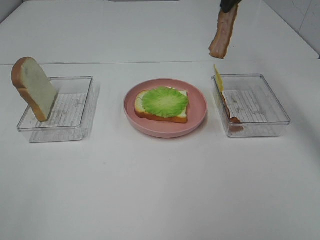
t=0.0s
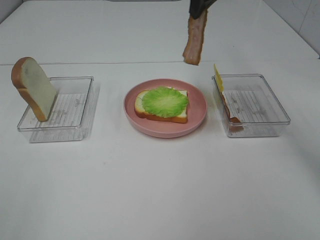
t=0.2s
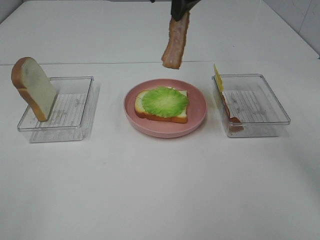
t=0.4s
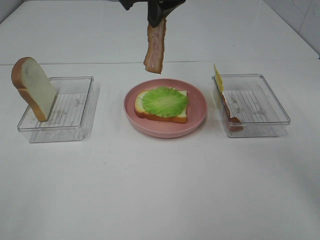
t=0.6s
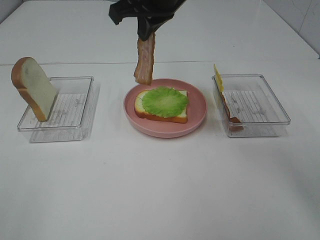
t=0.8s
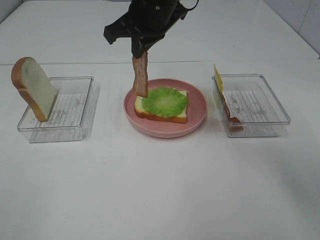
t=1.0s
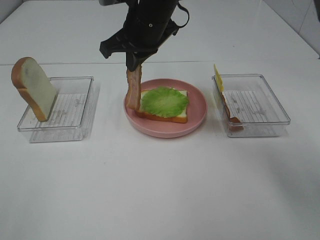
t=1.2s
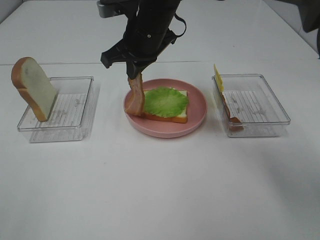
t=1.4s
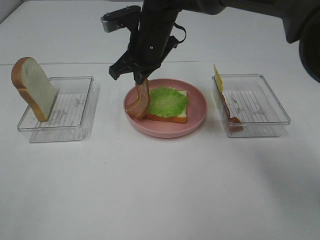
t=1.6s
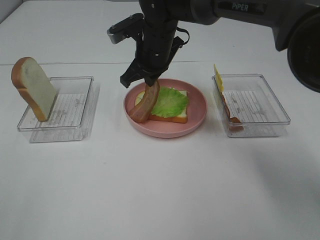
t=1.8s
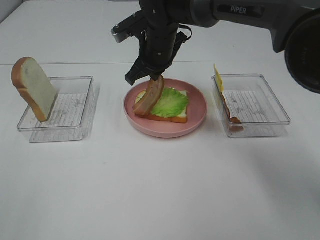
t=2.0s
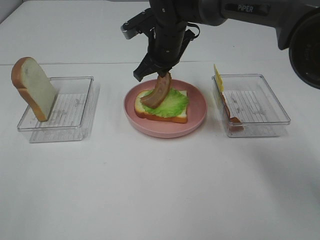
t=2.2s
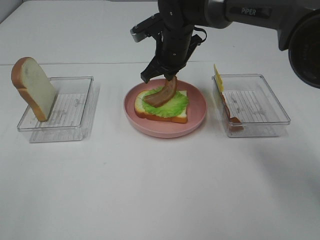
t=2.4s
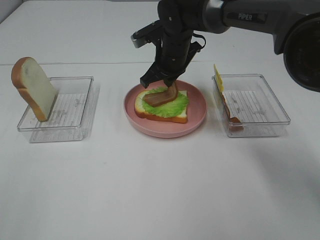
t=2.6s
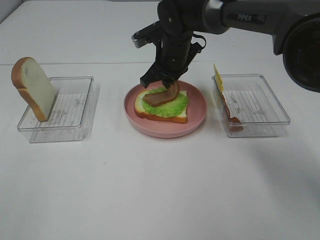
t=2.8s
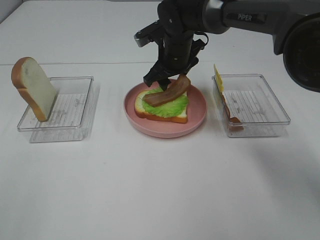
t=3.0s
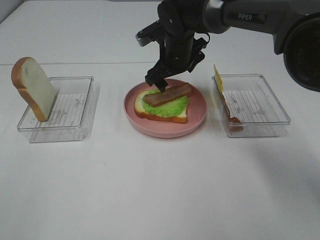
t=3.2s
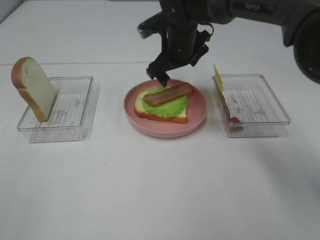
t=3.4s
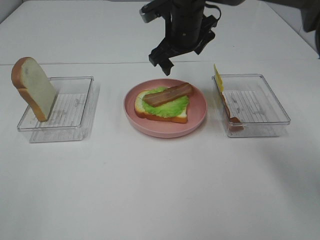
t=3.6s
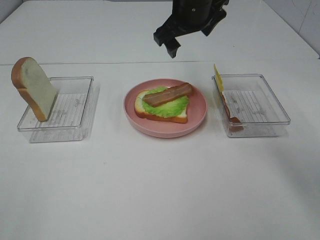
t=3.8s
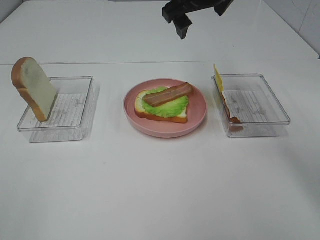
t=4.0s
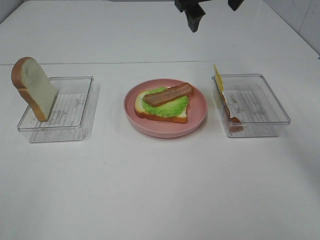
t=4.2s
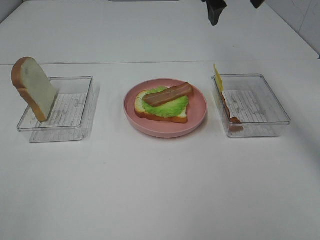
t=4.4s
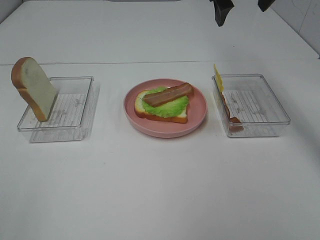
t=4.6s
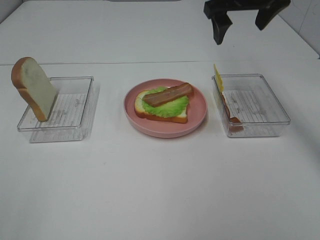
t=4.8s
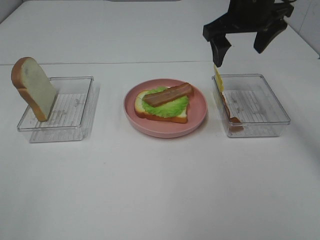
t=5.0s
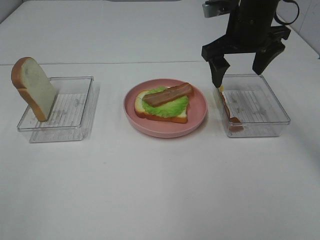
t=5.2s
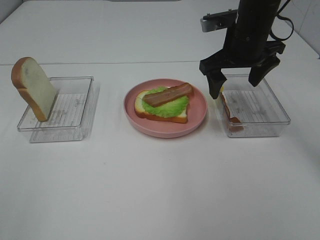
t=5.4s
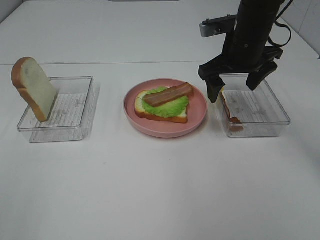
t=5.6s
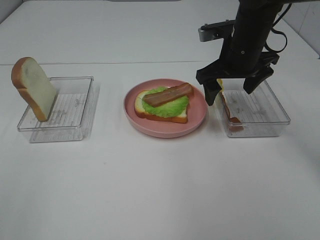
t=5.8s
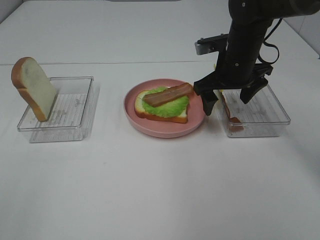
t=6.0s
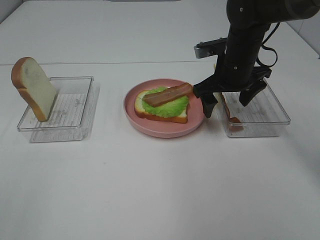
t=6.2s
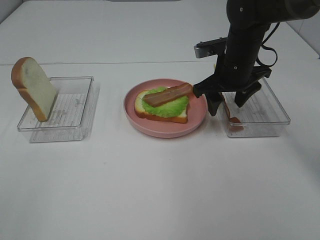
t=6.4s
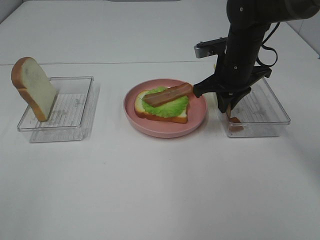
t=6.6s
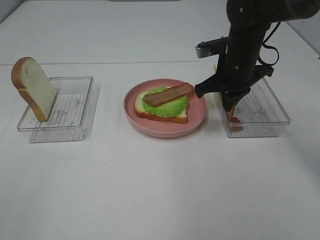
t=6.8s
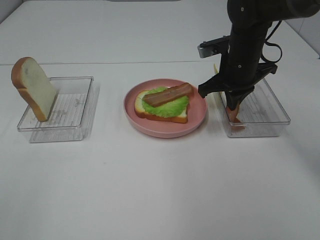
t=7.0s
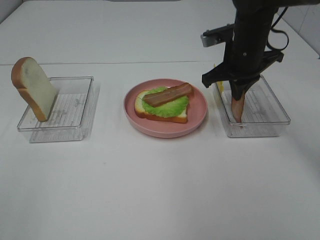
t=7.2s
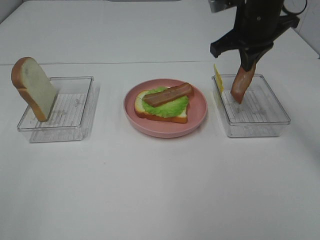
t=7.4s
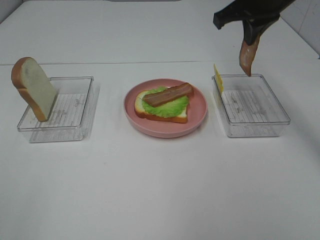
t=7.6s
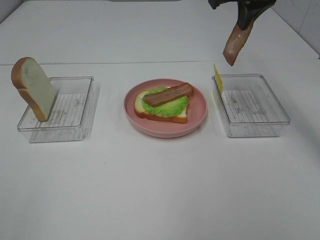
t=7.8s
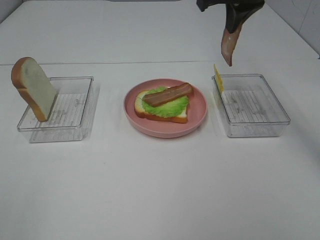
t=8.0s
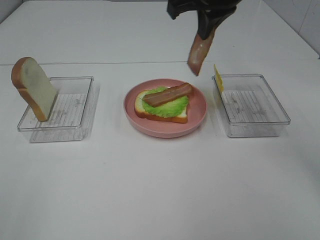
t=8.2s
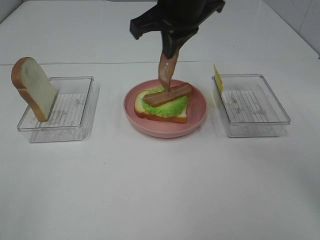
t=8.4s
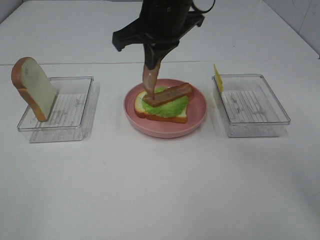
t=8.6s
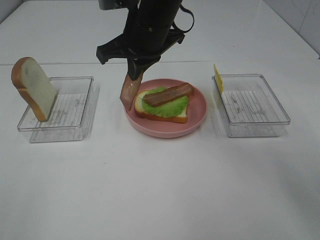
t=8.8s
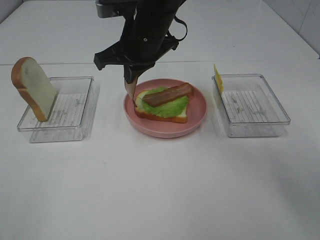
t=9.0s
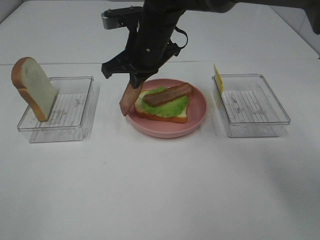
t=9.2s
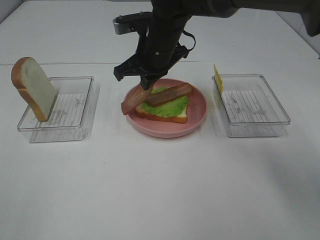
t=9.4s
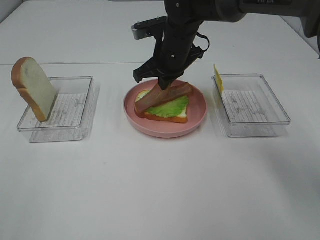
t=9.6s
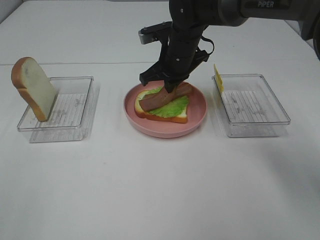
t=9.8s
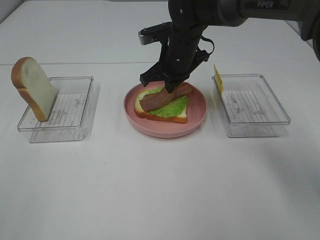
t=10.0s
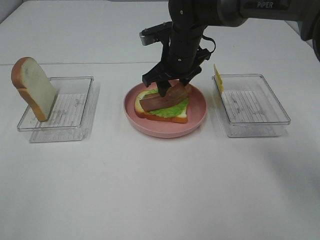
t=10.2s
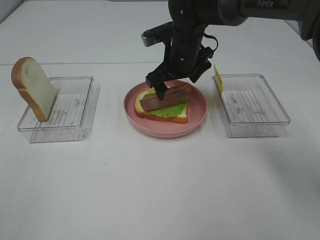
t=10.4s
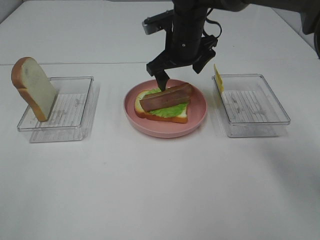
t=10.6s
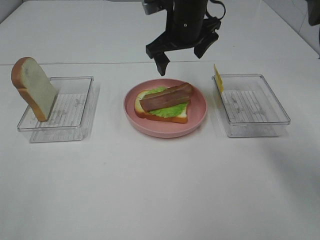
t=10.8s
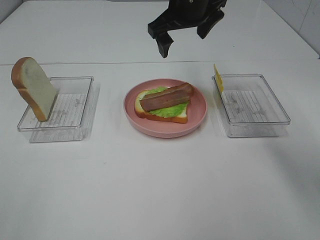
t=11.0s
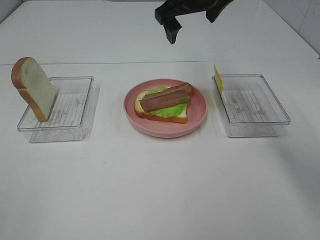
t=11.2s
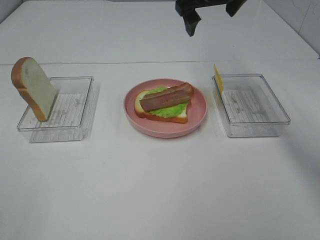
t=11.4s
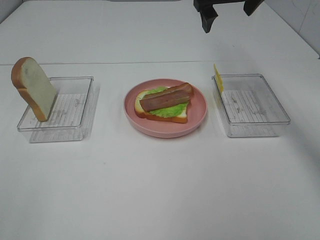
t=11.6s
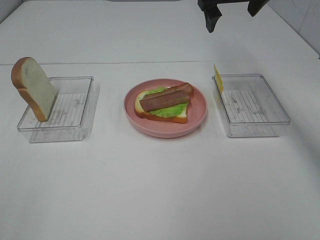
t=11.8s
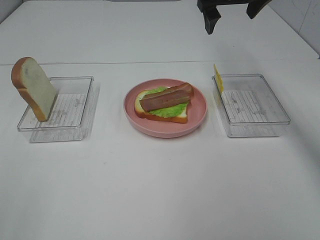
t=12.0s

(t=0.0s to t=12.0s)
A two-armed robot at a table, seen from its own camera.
Task of the whole recording: Make sandwiches.
Step, t=0.0s - t=3.4s: Right hand:place bacon on lettuce slice.
Step, t=3.6s - t=6.8s: Right hand:grab the bacon.
Step, t=7.0s - t=10.4s: Right hand:place bacon on bacon.
t=0.0s - t=1.6s: The right gripper travels to the left and downward by about 20 cm.
t=1.6s - t=3.0s: The right gripper moves approximately 10 cm, and opens its fingers.
t=3.0s - t=4.4s: The right gripper heads upward and to the right, covering roughly 20 cm.
t=4.4s - t=6.0s: The right gripper heads downward, covering about 15 cm.
t=6.0s - t=7.6s: The right gripper shifts roughly 15 cm upward, and closes.
t=7.6s - t=9.0s: The right gripper goes roughly 20 cm to the left and downward.
t=9.0s - t=10.4s: The right gripper goes about 10 cm to the right, downward and forward, and opens up.
t=10.4s - t=12.0s: The right gripper is displaced upward and to the right by roughly 15 cm.

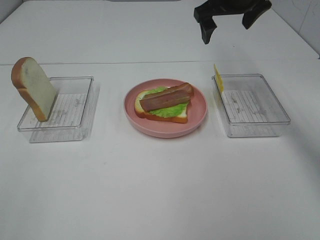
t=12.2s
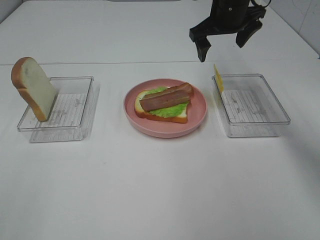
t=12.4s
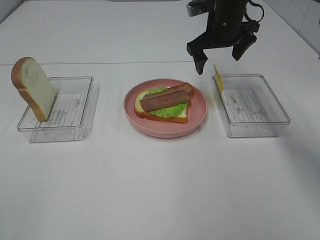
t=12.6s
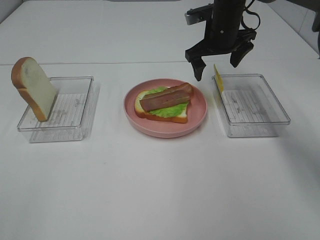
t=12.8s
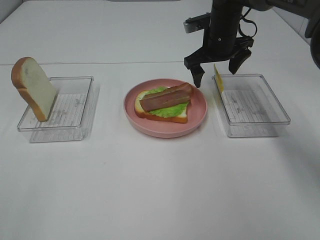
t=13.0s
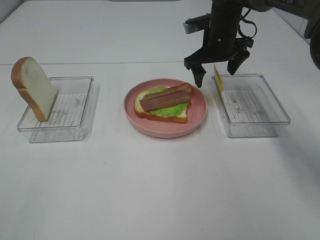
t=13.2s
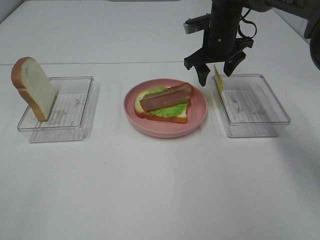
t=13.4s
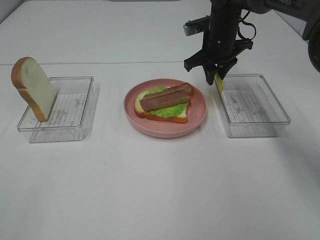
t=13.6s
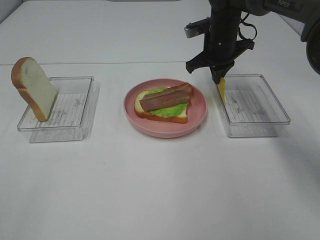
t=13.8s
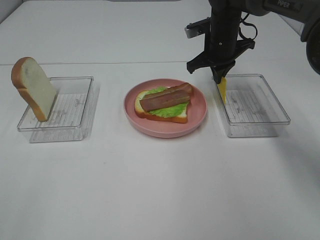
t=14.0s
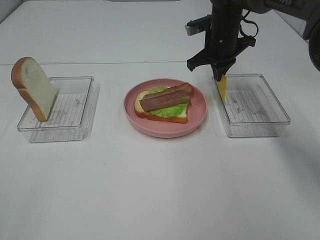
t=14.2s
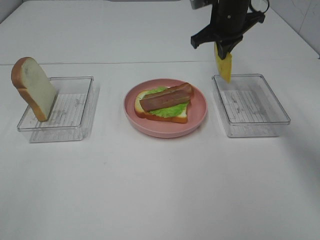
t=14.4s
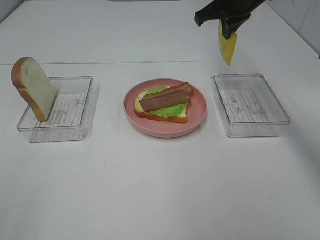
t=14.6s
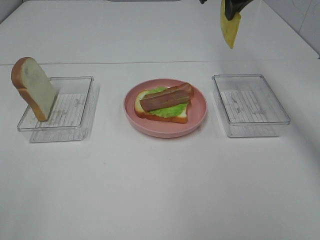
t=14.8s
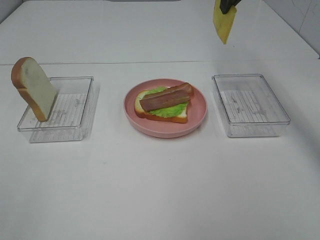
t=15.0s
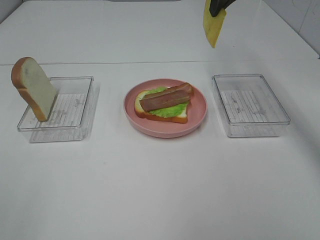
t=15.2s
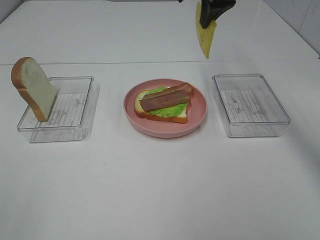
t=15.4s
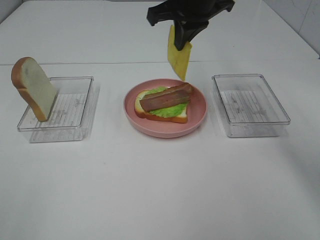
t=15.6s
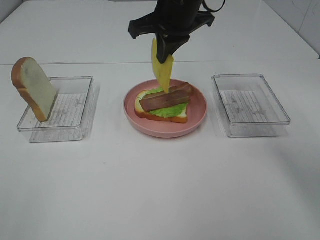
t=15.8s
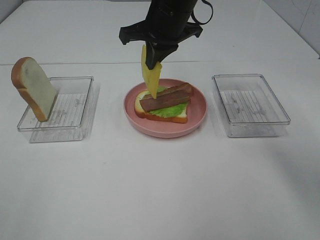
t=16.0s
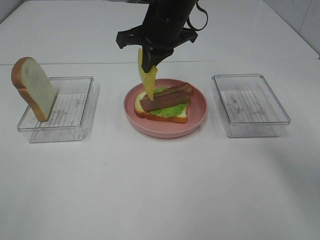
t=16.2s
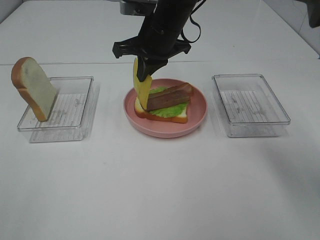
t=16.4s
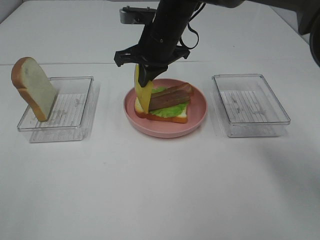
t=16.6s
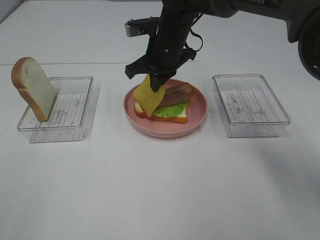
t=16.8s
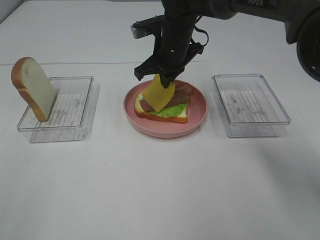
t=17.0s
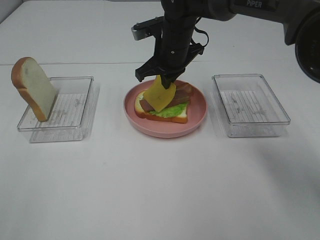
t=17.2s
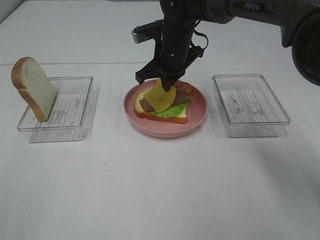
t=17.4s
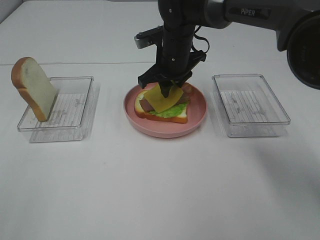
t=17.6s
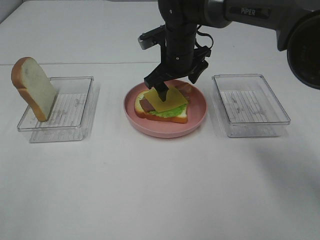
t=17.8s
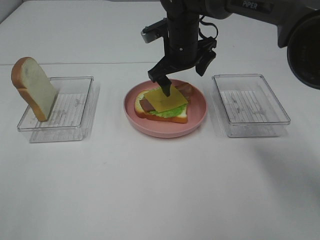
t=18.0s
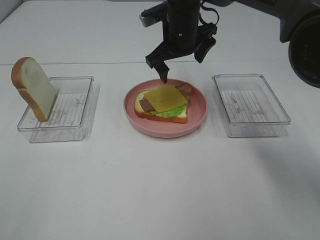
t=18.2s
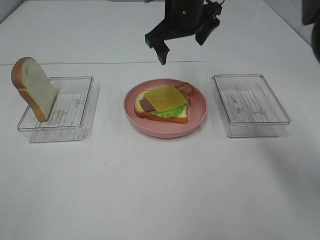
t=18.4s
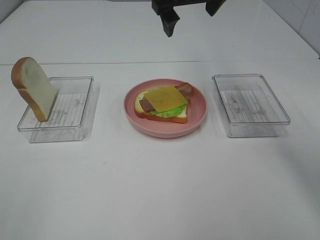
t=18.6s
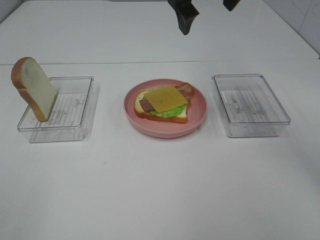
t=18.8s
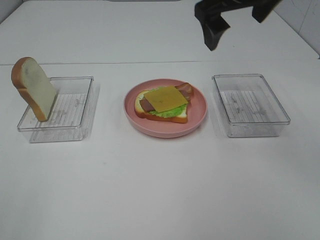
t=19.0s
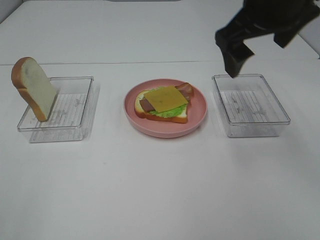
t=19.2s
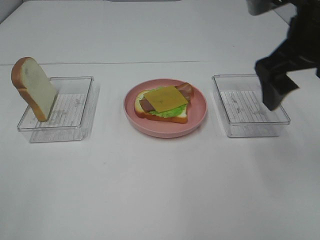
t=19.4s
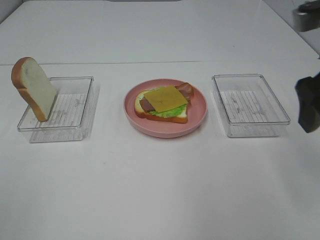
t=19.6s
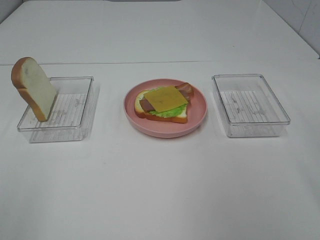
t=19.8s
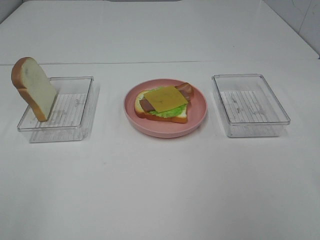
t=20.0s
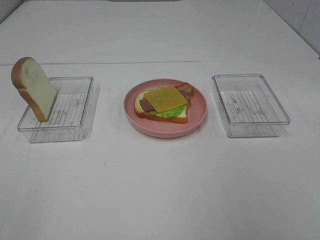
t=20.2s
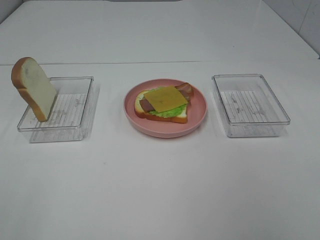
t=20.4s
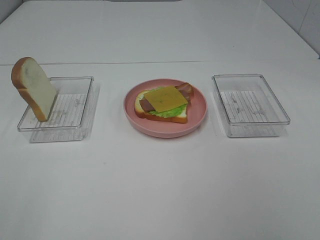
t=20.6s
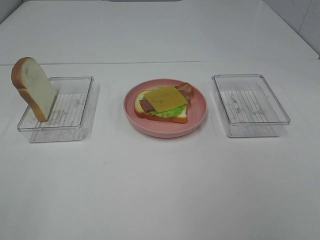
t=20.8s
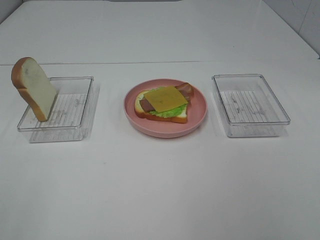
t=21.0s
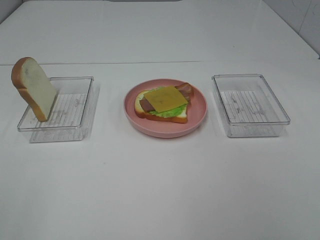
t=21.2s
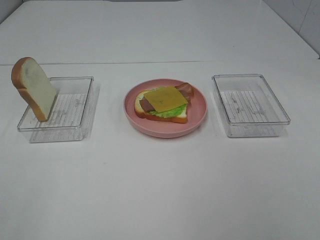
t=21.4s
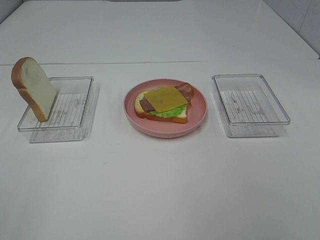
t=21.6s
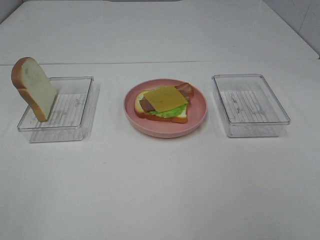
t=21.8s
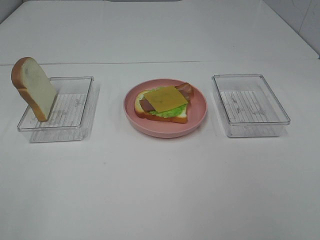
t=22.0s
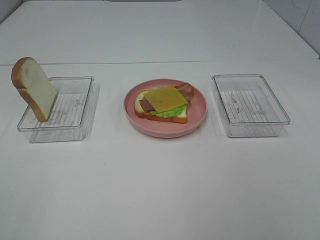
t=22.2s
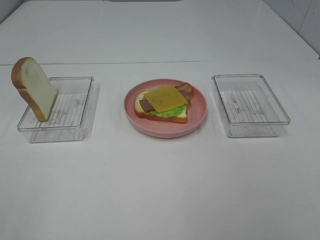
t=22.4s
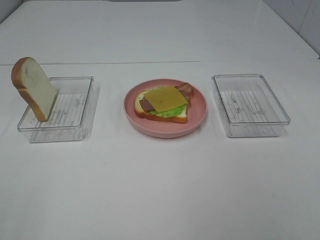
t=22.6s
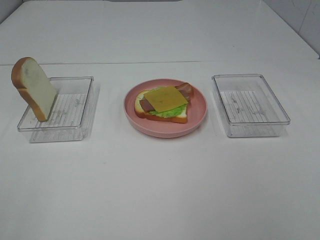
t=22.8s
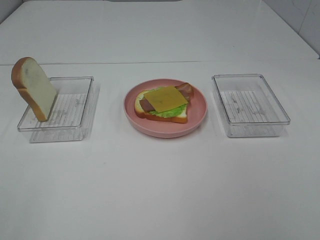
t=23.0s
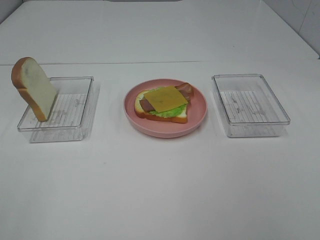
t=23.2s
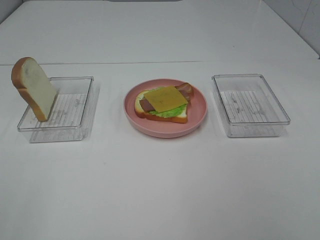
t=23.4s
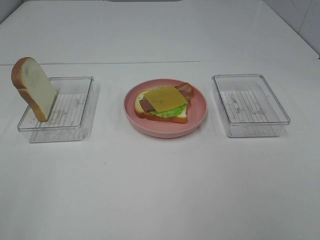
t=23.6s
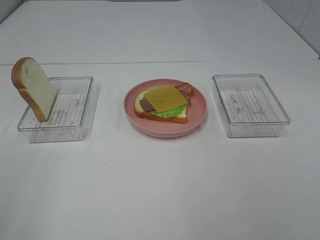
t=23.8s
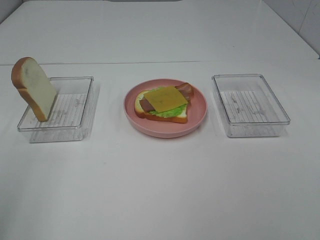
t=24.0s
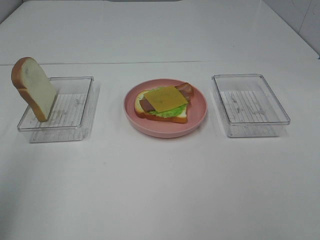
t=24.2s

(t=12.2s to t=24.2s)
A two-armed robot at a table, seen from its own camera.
Task of the whole recording: Make sandwiches.
Step, t=12.2s - t=14.2s: Right hand:grab the cheese slice.
Step, t=14.4s - t=17.8s: Right hand:place the cheese slice on top of the bacon.
t=12.2s - t=13.8s: The right gripper moves downward, roughly 10 cm, and closes up.
t=13.8s - t=15.2s: The right gripper travels upward by roughly 15 cm.
t=15.2s - t=16.6s: The right gripper heads downward and to the left, covering about 15 cm.
t=16.6s - t=18.2s: The right gripper opens up.
t=18.2s - t=19.8s: The right gripper moves backward and to the right, about 35 cm.
t=21.2s - t=22.6s: The two grippers keep their place.
t=22.6s - t=24.2s: The left gripper travels forward and upward by some 15 cm.
